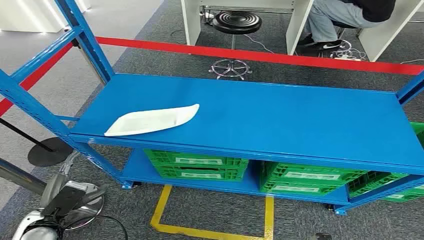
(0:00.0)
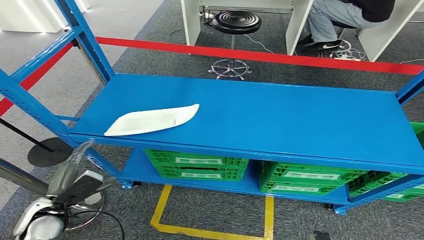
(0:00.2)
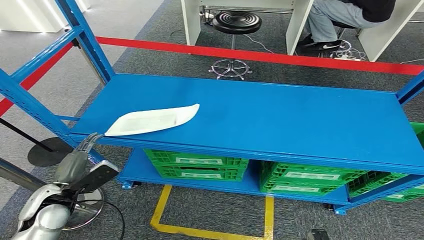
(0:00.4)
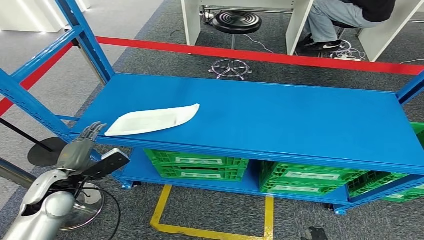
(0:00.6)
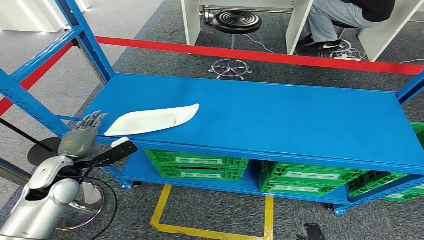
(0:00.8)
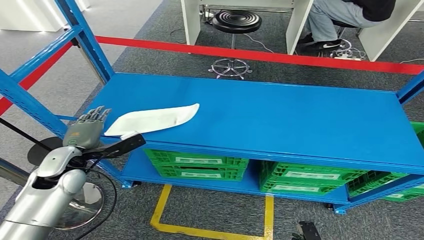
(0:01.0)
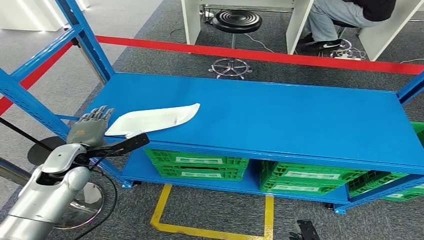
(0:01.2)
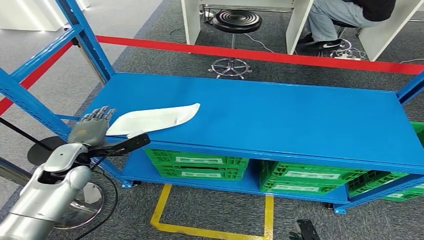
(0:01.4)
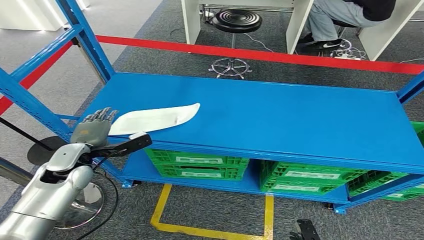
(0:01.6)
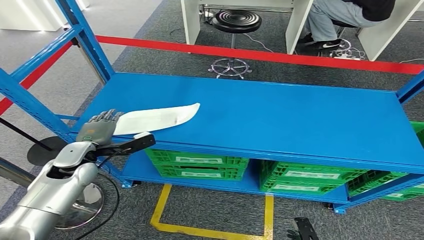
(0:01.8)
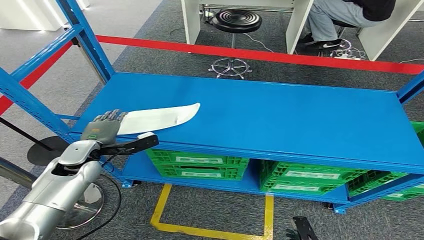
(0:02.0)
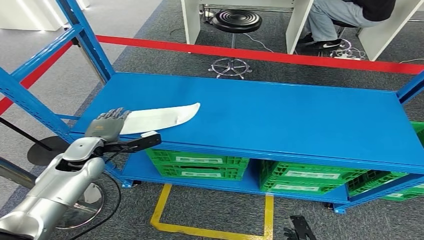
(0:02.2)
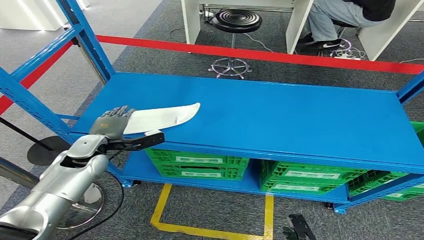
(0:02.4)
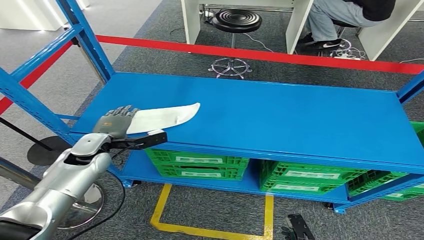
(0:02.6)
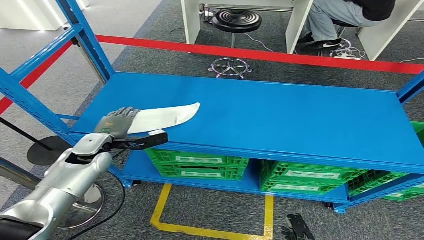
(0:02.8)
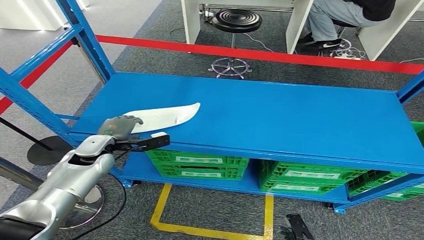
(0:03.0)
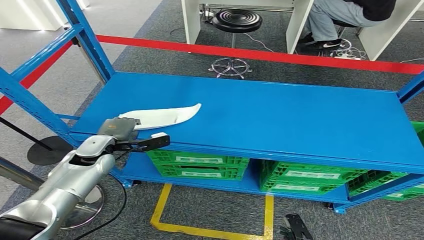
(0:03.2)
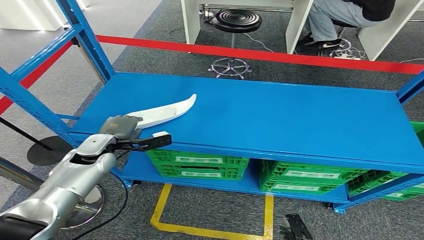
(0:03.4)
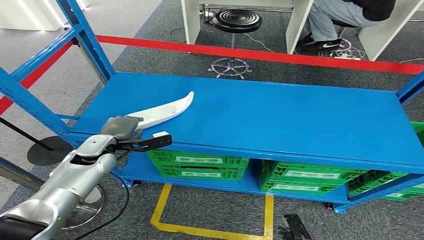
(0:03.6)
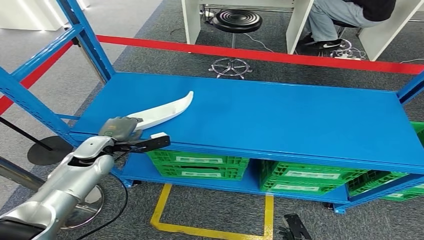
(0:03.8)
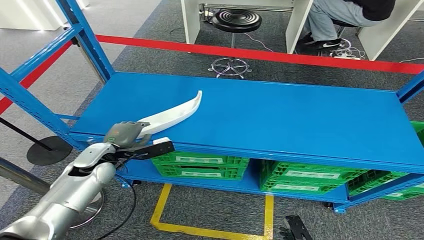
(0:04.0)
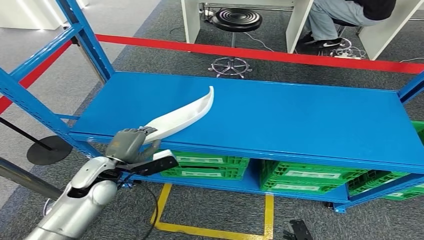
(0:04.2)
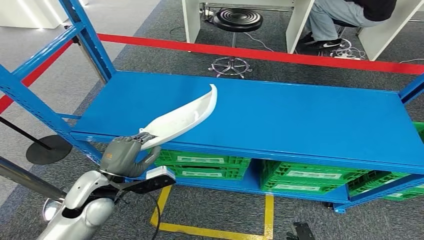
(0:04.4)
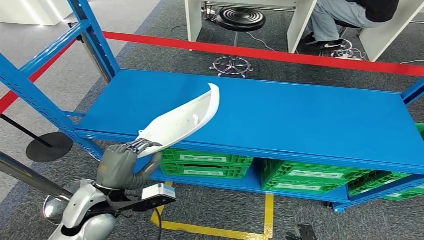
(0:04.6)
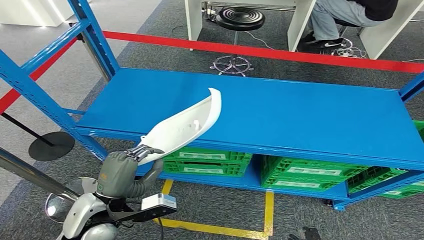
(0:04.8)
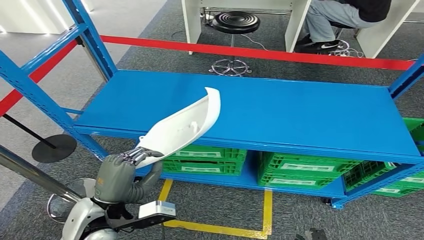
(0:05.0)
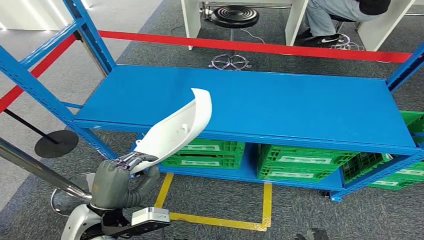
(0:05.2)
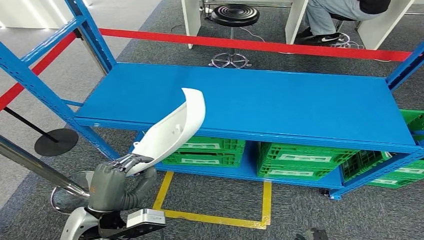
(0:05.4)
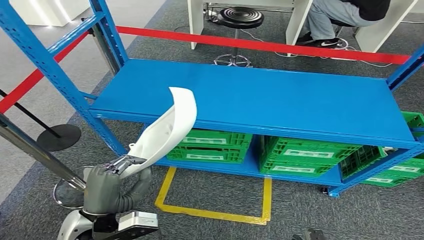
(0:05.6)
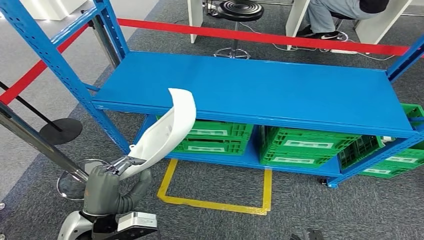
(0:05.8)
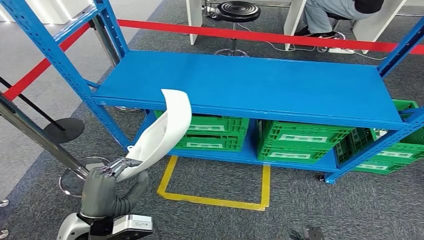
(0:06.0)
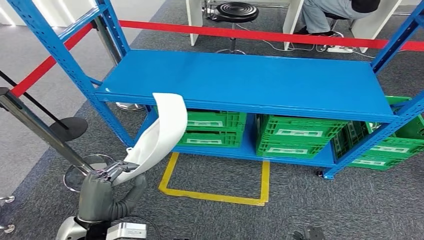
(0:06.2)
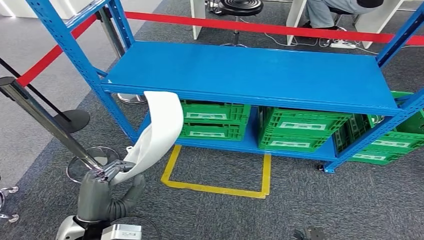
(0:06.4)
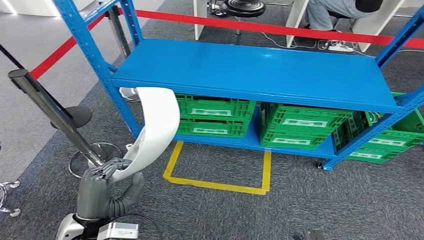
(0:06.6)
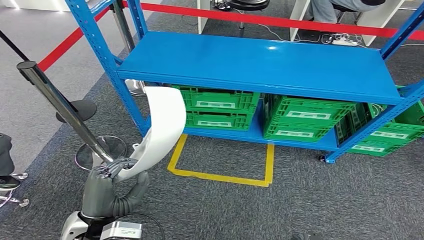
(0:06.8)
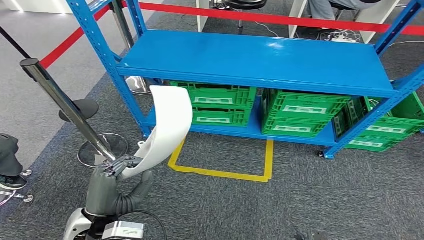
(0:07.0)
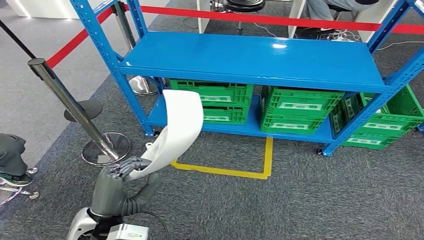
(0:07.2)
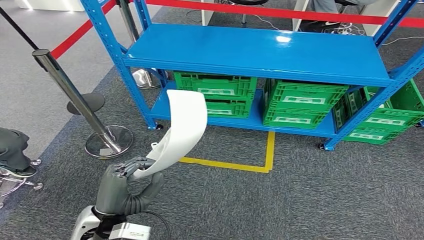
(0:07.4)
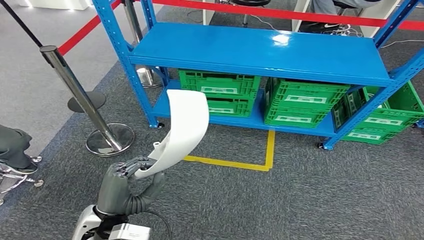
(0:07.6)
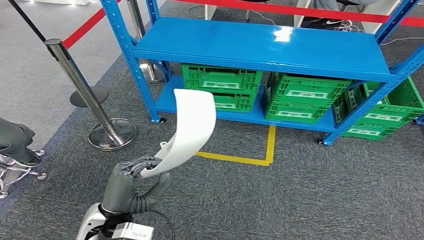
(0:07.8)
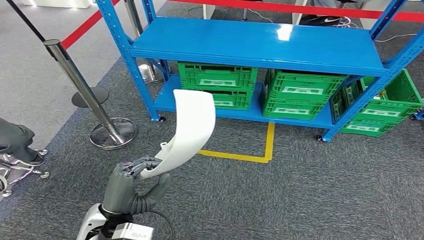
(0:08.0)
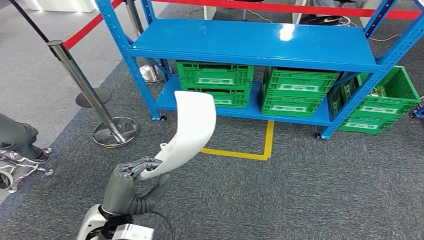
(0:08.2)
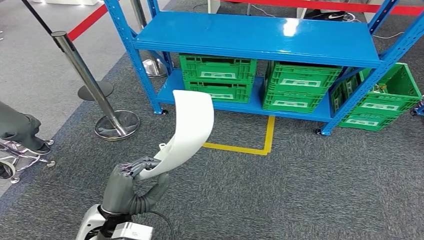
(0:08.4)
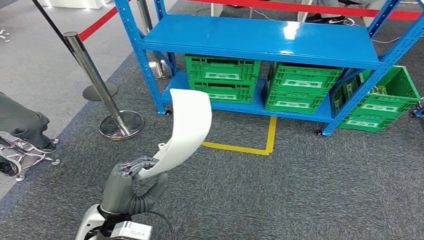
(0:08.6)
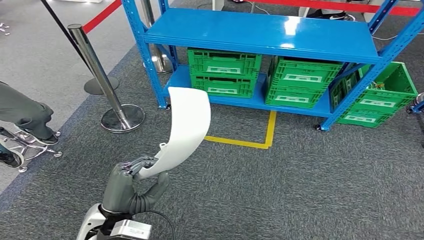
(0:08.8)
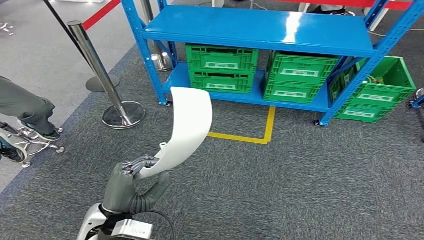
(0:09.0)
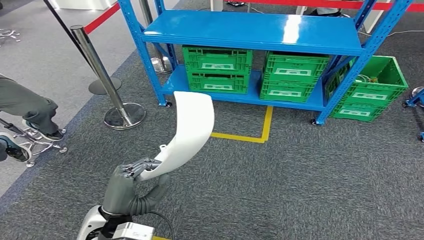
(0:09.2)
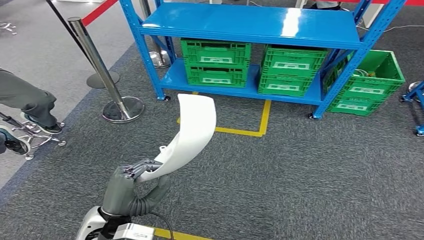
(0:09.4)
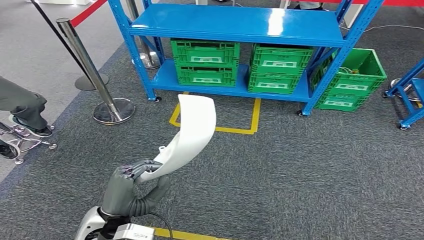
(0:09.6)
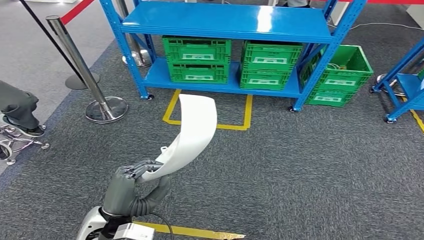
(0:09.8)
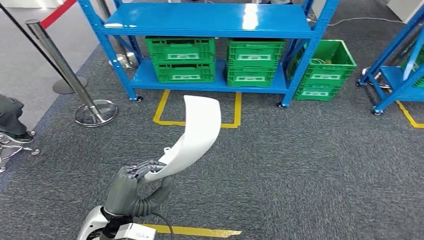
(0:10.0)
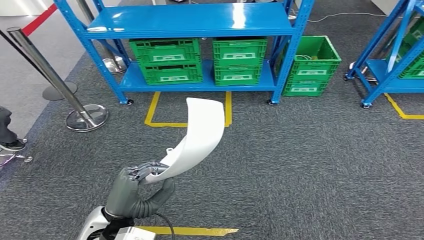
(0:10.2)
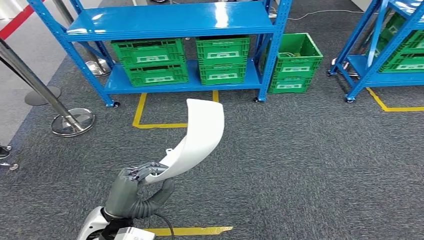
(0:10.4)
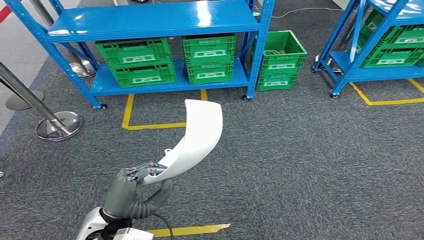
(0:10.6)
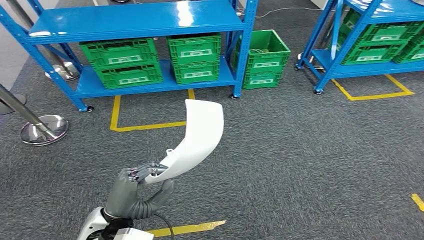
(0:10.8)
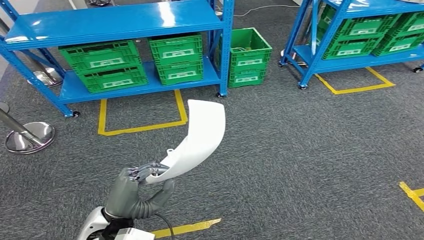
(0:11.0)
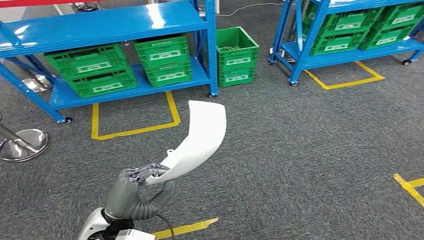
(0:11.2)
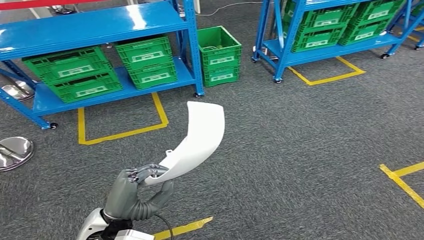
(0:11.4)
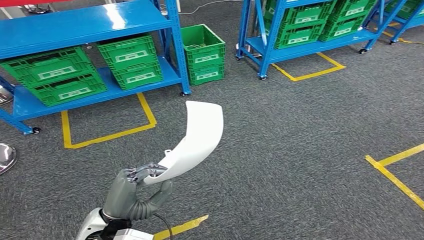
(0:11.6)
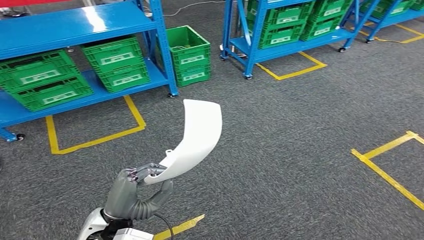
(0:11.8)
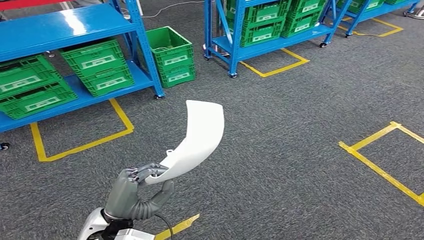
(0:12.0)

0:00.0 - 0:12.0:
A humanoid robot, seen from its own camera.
Step, 0:00.0 - 0:06.2: Take small components from the rack.
0:01.6 - 0:03.0: The left hand shifts by roughly 5 cm.
0:03.0 - 0:04.4: The left hand goes roughly 10 cm backward.

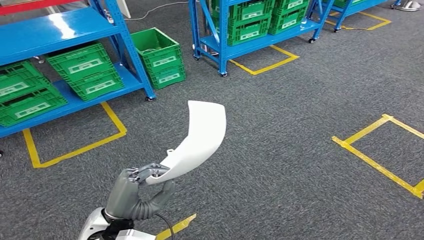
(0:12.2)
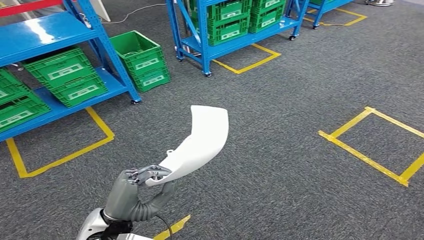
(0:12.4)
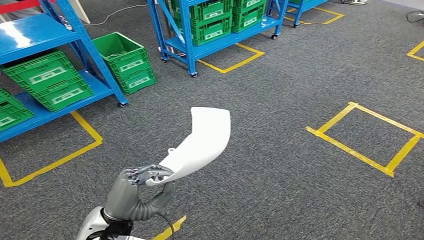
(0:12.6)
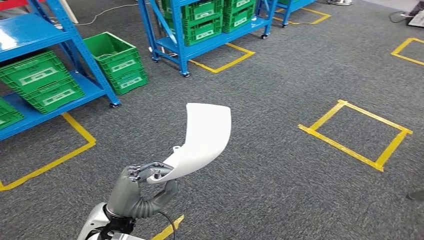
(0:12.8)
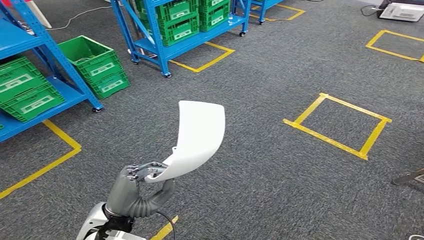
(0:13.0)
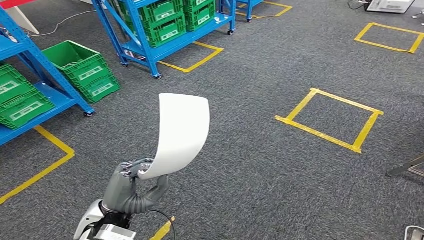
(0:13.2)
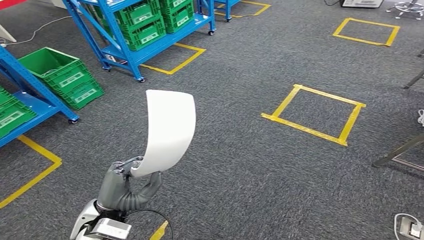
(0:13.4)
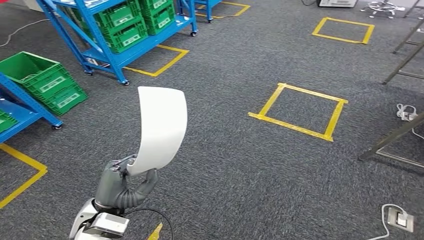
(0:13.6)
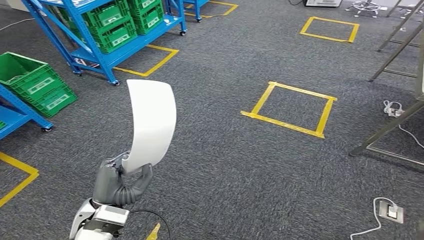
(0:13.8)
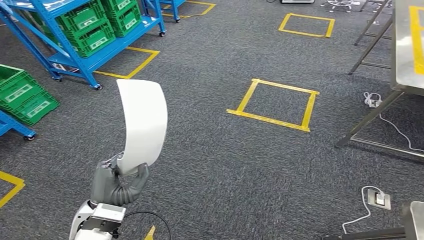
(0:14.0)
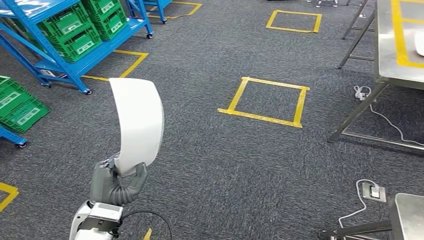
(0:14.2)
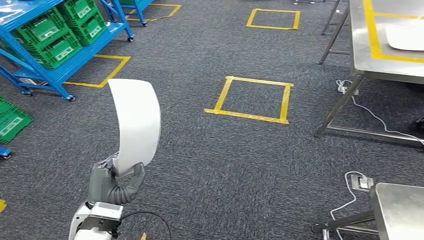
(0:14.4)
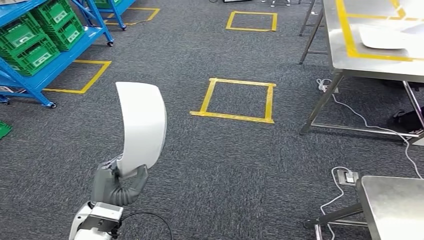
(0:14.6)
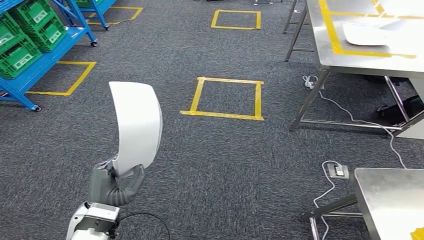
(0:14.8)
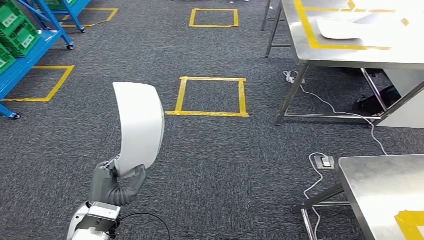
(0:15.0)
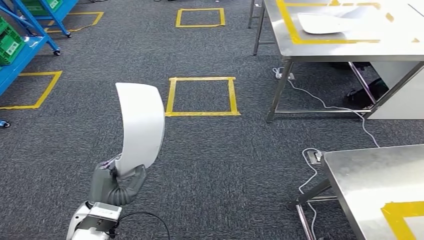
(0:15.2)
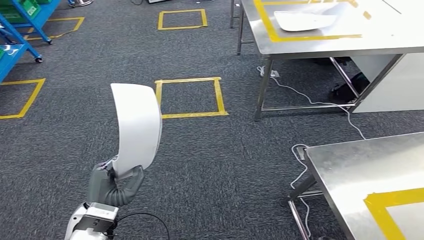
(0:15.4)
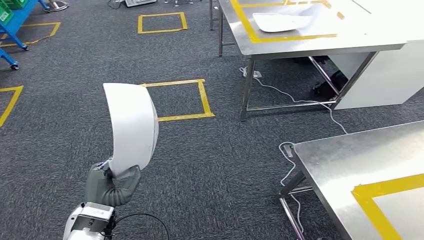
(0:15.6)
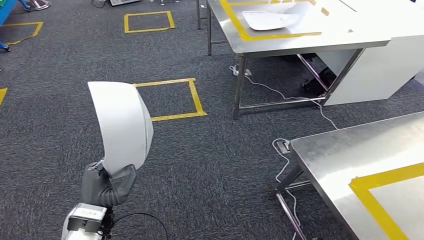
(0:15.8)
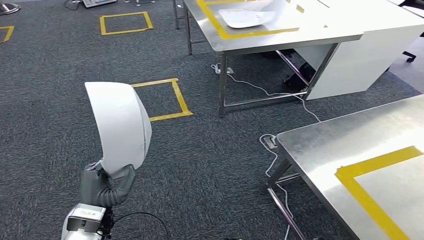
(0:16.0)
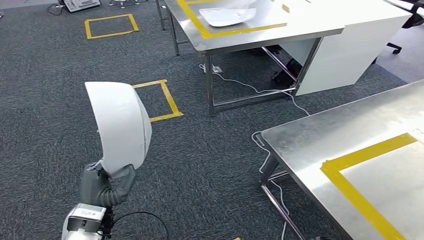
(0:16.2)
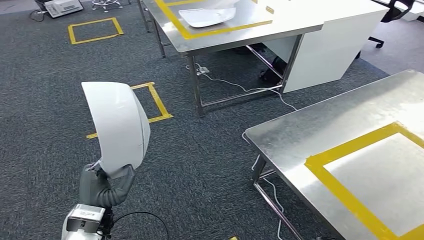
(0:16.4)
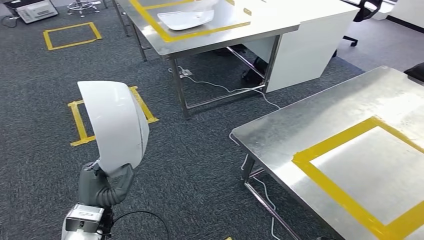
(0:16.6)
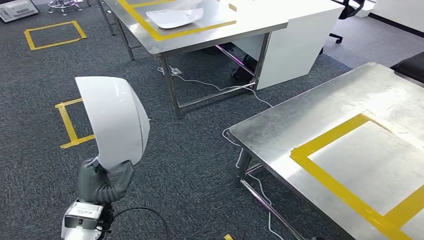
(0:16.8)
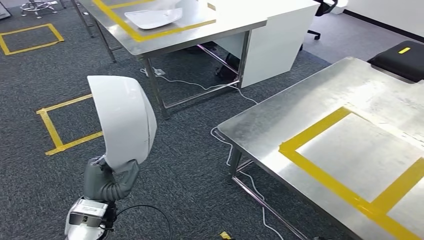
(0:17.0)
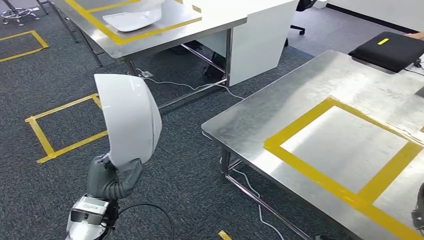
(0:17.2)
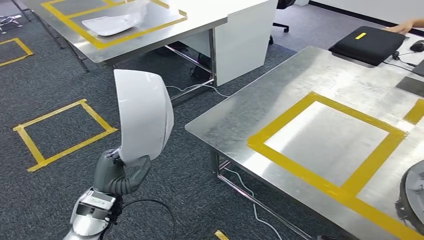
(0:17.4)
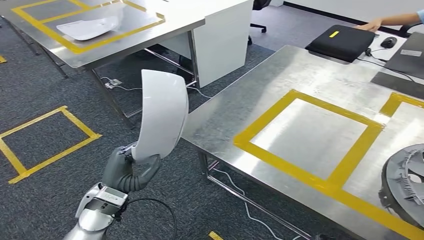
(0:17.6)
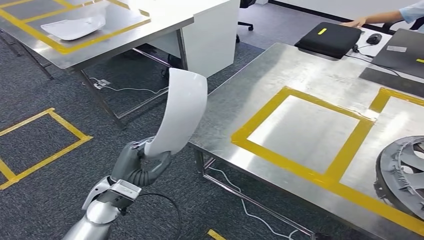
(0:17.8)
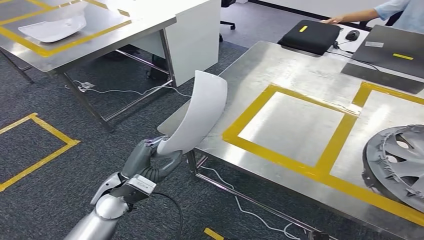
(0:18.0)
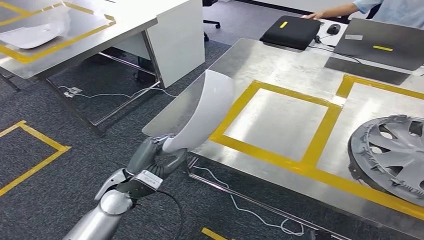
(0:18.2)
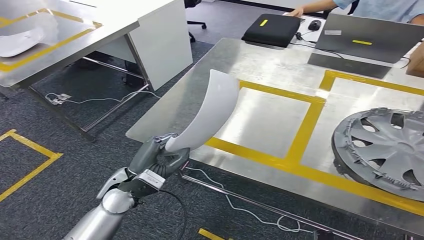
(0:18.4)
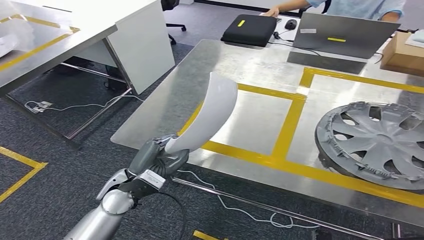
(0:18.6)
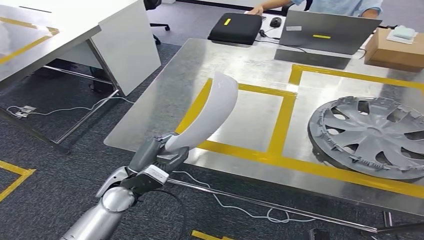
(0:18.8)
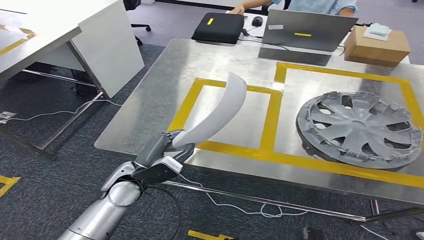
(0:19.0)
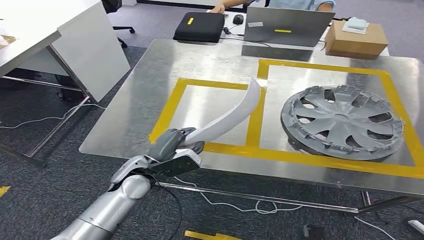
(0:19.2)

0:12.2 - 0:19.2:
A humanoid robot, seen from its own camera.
Step, 0:12.2 - 0:17.8: Move the small parts to the workbench.
